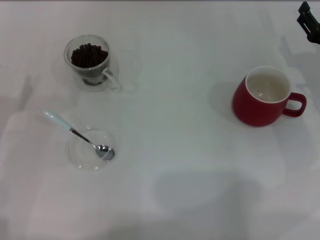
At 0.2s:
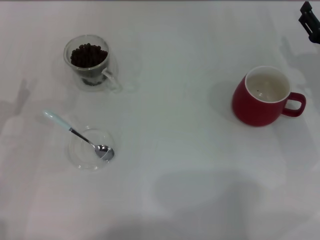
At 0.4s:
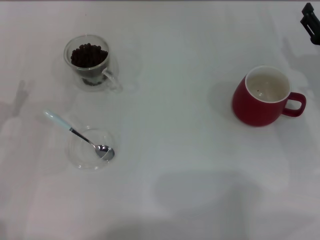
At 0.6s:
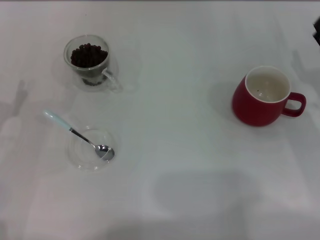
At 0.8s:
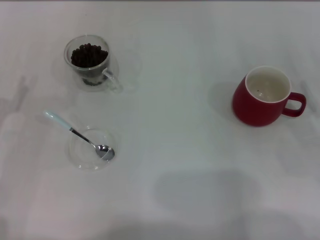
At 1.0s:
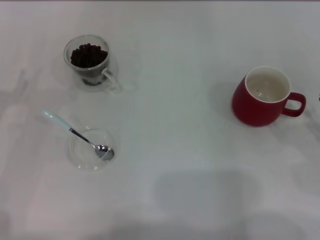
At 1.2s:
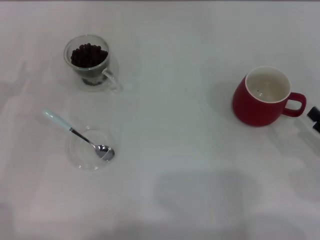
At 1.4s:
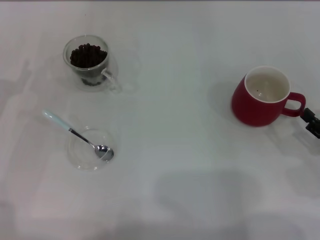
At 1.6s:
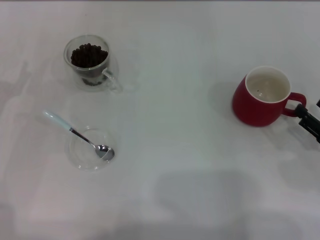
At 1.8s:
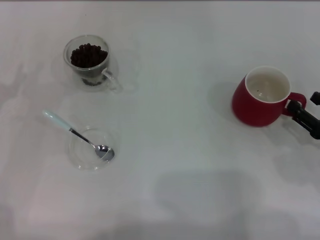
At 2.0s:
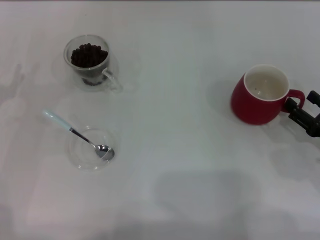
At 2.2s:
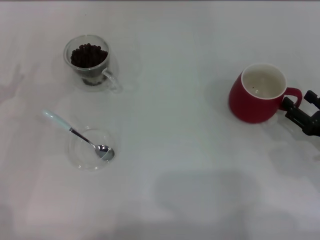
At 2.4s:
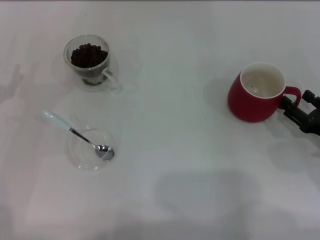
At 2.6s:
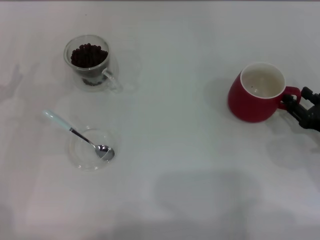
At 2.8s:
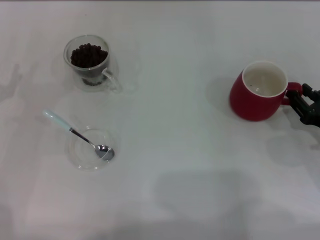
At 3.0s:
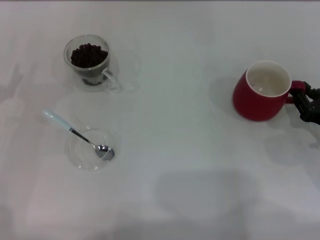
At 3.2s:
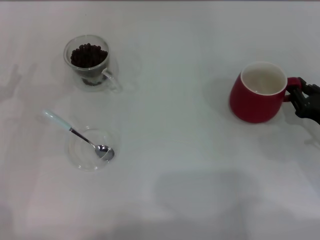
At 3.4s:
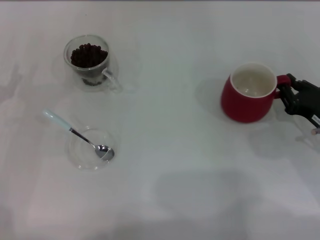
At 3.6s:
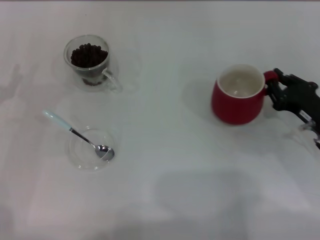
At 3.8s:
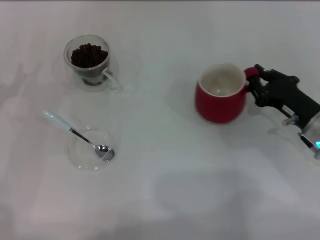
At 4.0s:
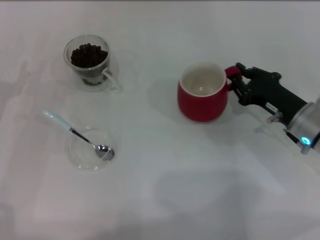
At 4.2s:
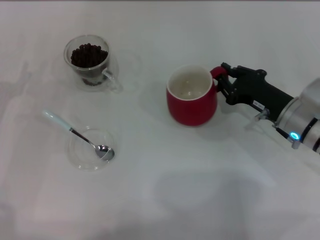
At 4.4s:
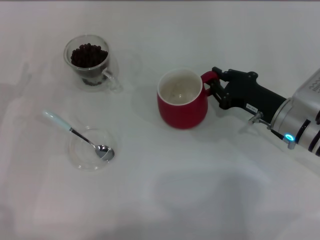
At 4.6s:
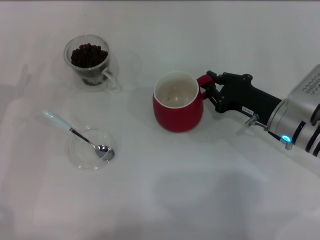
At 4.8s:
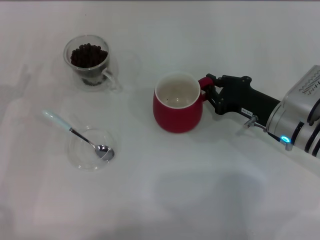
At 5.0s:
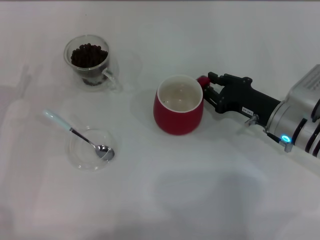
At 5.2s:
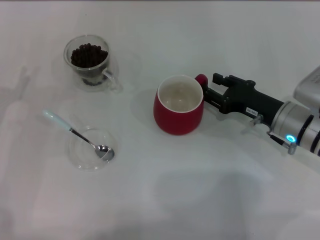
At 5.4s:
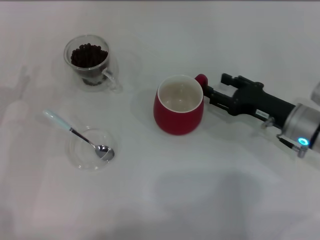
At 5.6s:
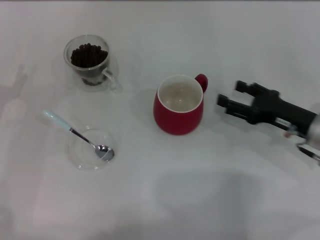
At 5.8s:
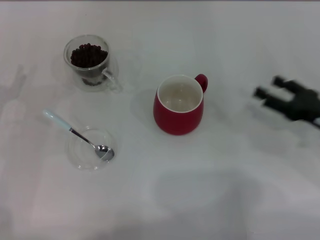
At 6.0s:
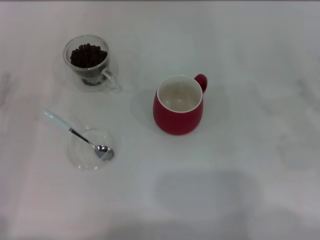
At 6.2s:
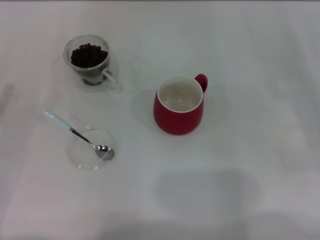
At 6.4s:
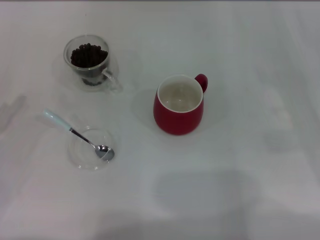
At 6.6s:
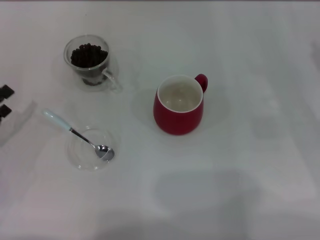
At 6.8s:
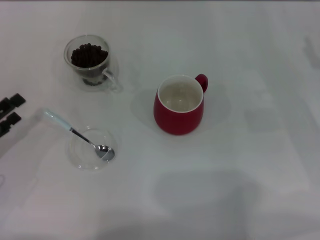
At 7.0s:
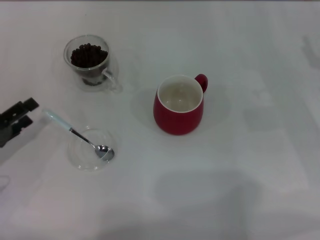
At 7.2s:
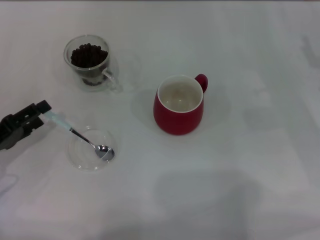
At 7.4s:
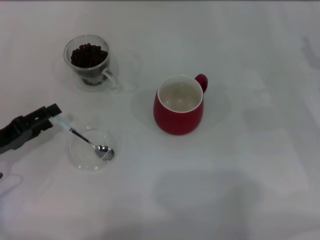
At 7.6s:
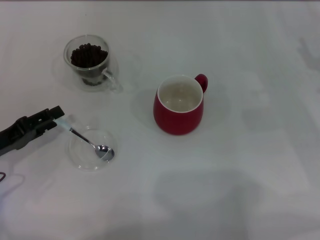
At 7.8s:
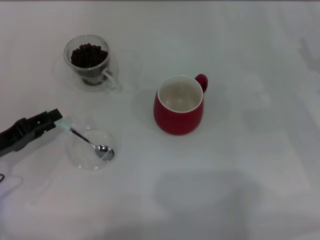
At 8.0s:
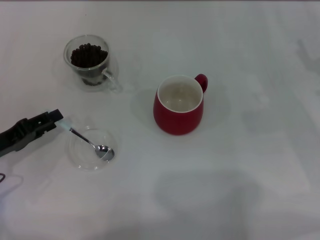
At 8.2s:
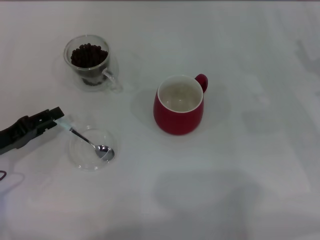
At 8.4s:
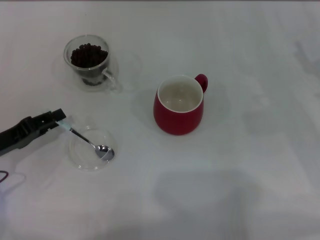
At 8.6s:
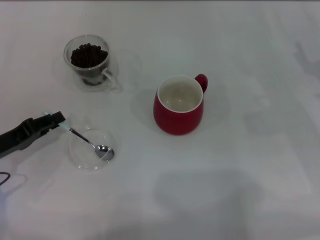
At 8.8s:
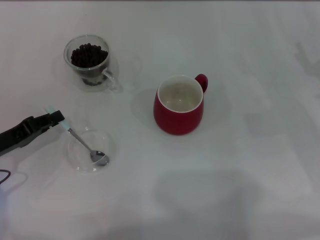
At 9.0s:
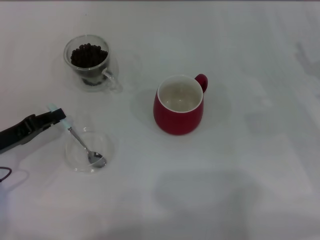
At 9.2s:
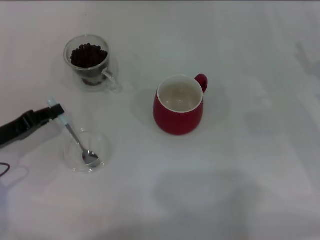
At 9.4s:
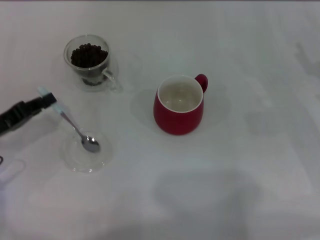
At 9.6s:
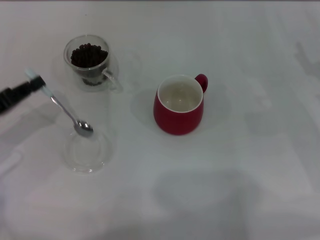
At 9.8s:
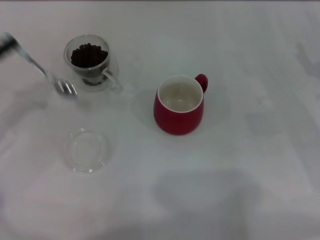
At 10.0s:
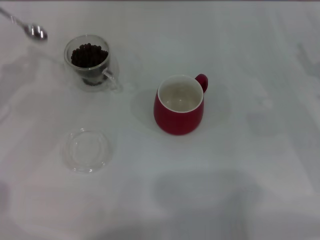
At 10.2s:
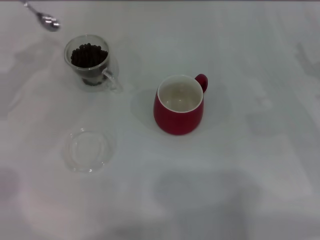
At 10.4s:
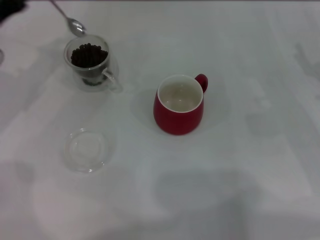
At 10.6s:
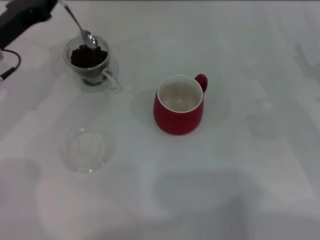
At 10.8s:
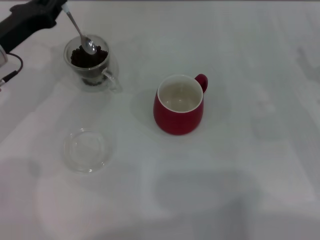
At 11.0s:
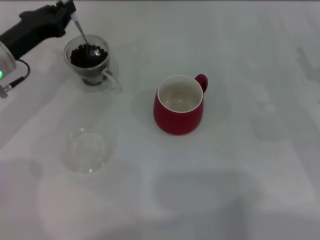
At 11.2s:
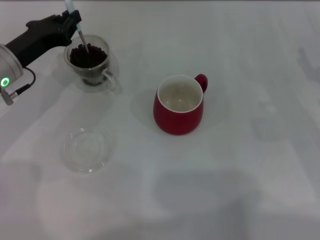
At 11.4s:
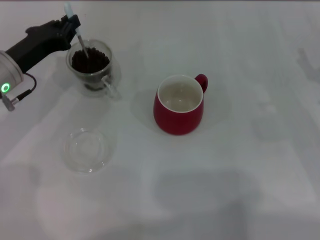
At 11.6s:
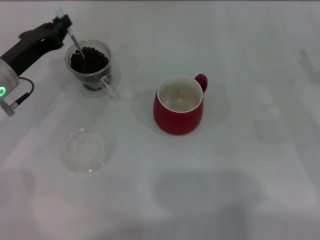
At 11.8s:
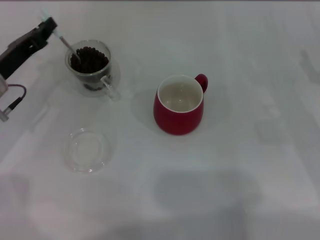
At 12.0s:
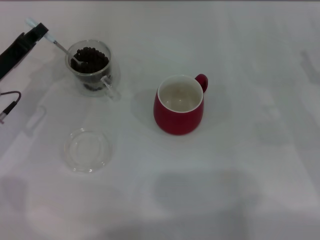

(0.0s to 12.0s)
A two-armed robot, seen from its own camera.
Task of the whole recording: Use a blue spoon to take out the coffee beans from the glass and pour them into the red cup.
Step, 0.0s - 5.4s: Move the cup to the center of view with the left gripper.
Step, 5.6s - 9.6s: Pick up the spoon with the right gripper.
0.0s - 1.6s: The right gripper goes about 15 cm backward.
1.6s - 3.0s: The right gripper closes up.
3.0s - 4.4s: The right gripper shifts approximately 10 cm to the left and forward.
4.4s - 6.0s: The right gripper shifts roughly 15 cm to the right and backward, and opens up.
7.6s - 9.0s: The left gripper closes its fingers.
9.0s - 10.4s: The left gripper shifts some 15 cm forward and upward.
10.4s - 12.0s: The left gripper travels downward by roughly 5 cm.

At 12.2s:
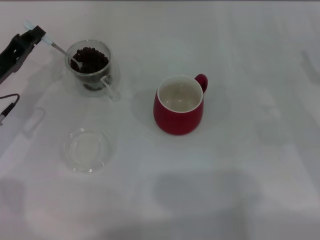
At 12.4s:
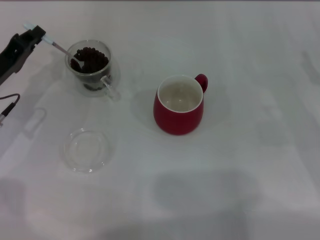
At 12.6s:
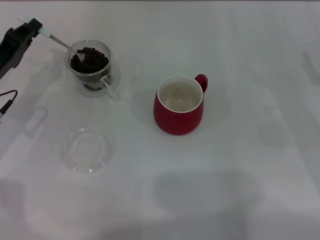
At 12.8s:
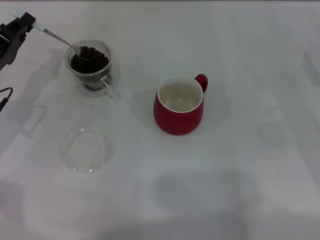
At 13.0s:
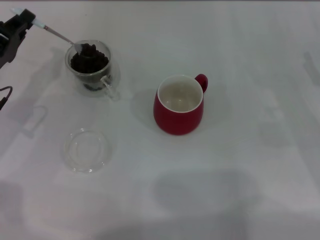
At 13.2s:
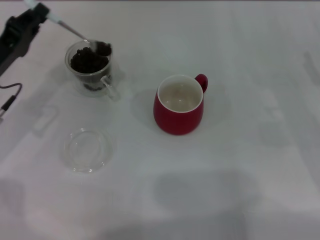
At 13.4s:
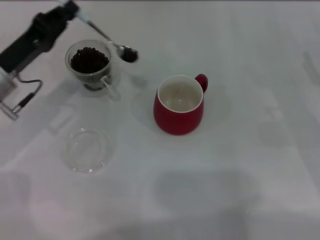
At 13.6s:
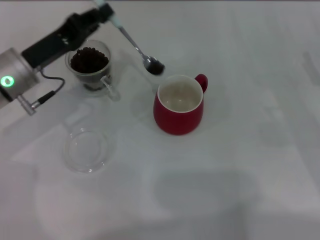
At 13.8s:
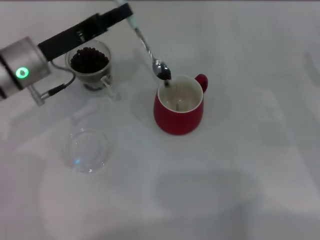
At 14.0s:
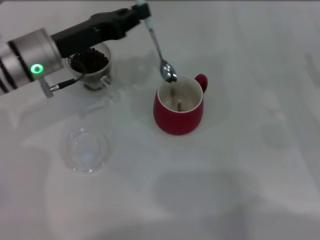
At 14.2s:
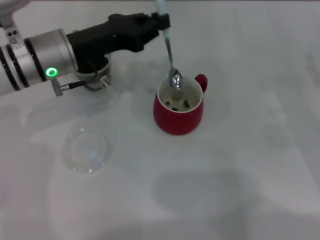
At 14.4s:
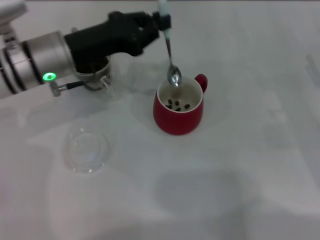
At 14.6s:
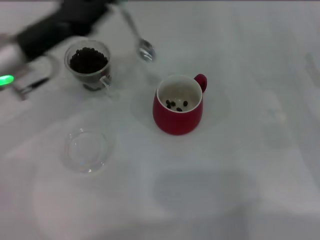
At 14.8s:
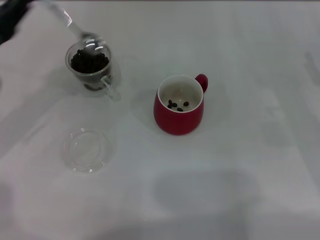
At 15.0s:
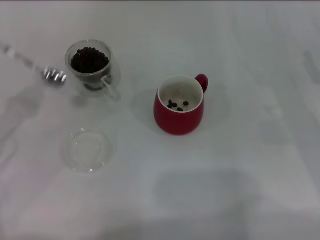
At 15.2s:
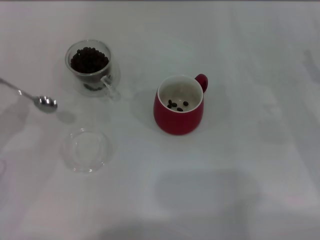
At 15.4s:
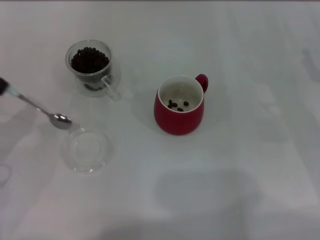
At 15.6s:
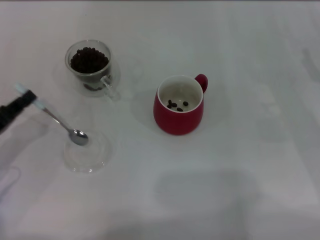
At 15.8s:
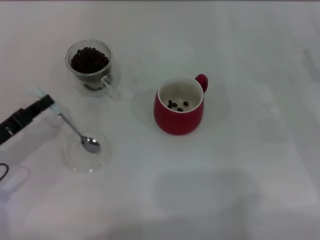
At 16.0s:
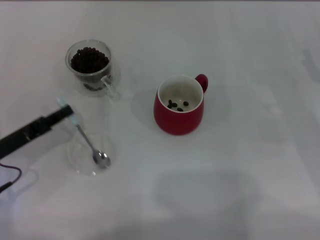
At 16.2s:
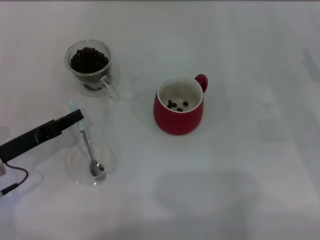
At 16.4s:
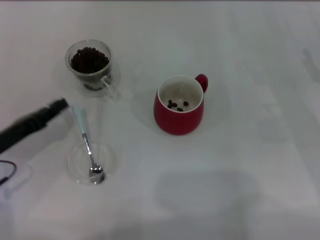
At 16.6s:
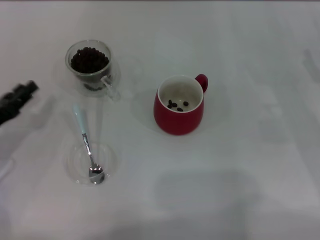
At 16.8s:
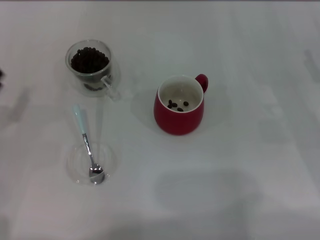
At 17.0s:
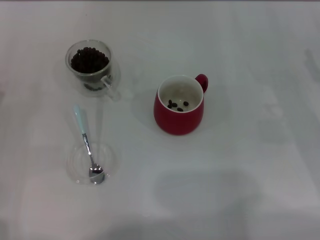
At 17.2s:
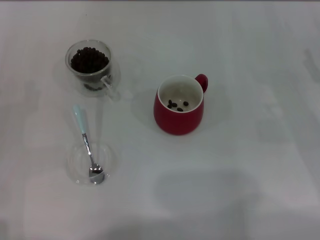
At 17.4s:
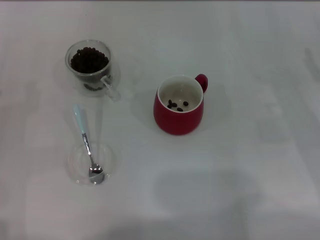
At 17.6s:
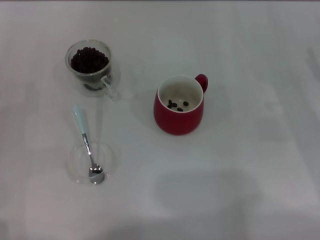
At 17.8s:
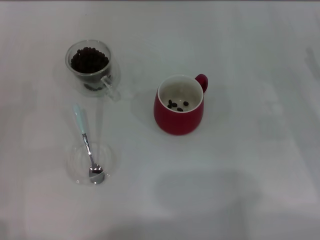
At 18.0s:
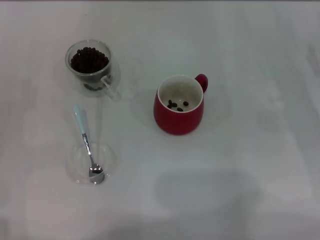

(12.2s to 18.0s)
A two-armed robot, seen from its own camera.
Task of the whole recording: Use a blue spoon to take out the coffee beans from the glass and pour them into the red cup.
12.2s - 13.6s: The left gripper shifts approximately 5 cm to the right.
13.6s - 15.0s: The left gripper travels to the left and backward by approximately 10 cm.
15.0s - 16.6s: The left gripper goes about 5 cm downward.
16.6s - 18.0s: The left gripper opens.

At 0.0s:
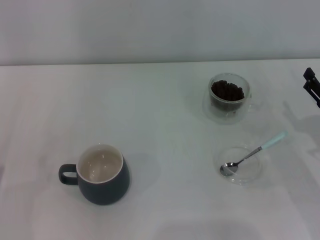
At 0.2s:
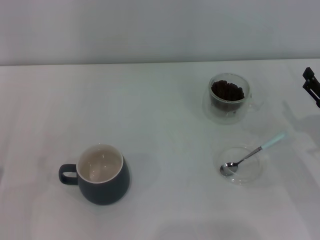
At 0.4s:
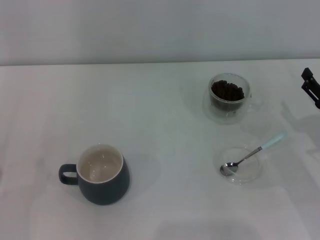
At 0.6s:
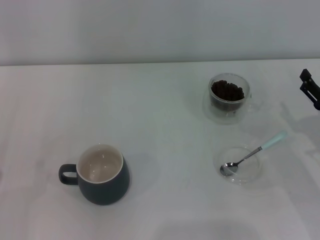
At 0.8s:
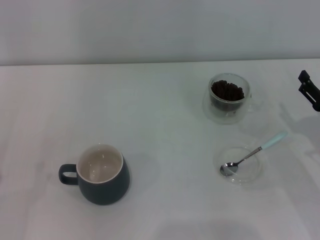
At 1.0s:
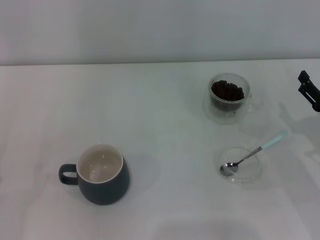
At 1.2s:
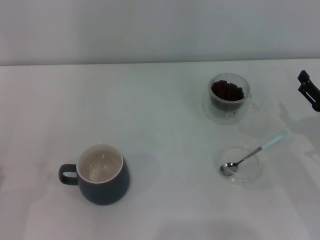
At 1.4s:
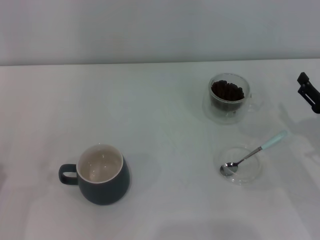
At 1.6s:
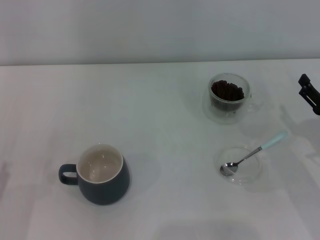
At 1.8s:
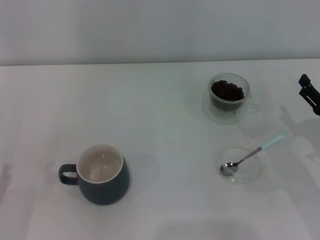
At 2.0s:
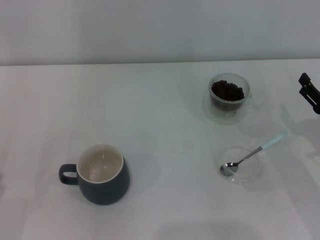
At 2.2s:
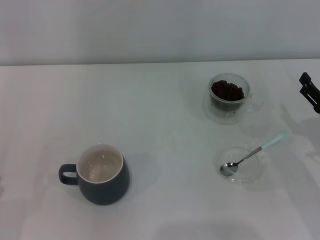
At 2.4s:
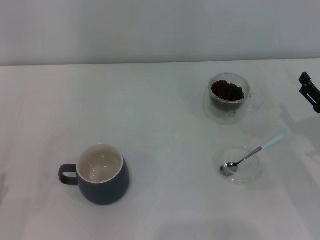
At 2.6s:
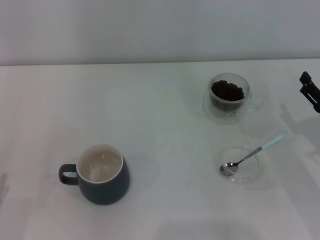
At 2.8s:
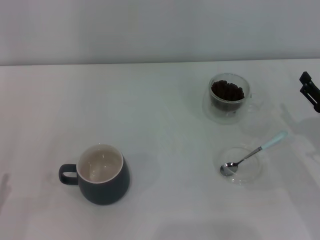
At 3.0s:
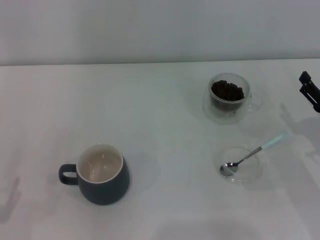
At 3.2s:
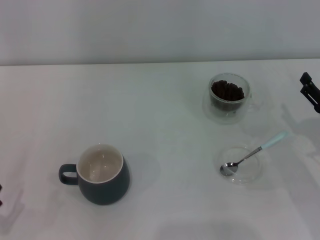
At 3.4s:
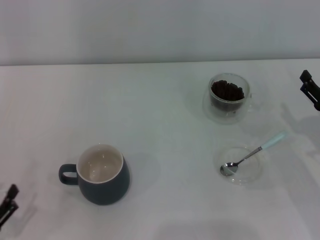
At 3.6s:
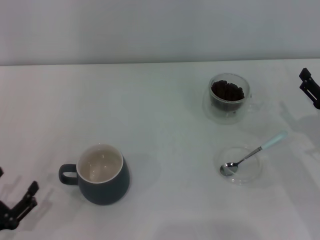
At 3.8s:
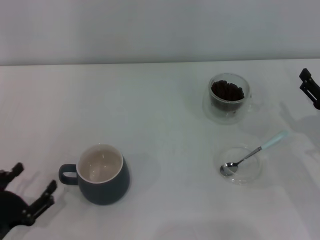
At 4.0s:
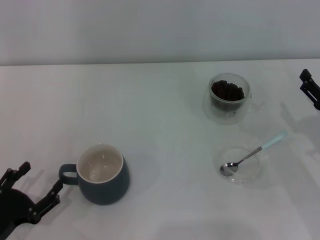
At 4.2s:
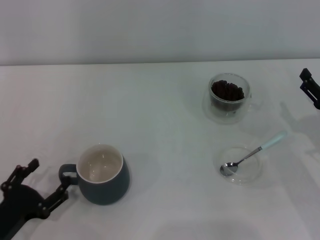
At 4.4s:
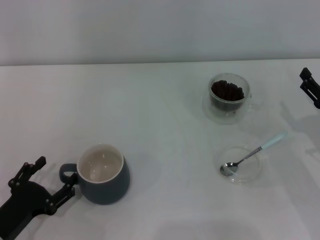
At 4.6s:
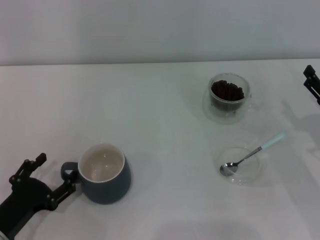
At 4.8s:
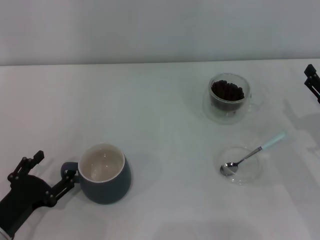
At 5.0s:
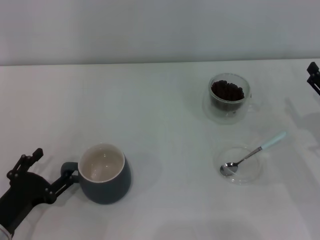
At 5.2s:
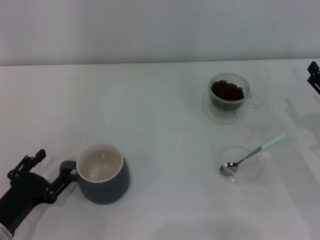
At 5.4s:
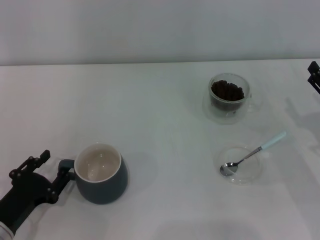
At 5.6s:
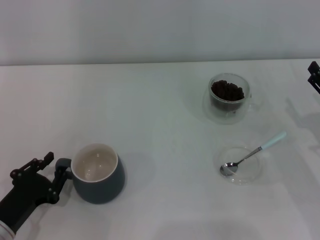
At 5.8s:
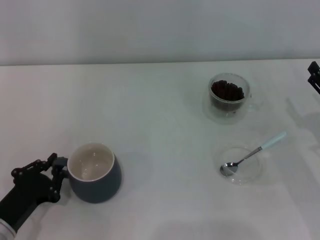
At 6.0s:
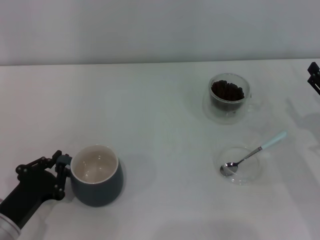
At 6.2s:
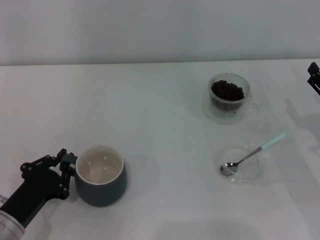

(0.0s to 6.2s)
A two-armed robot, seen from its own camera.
Task of the whole recording: Use a blue spoon to take out the coffee beans from the glass and pour them into the gray cup.
3.2s - 4.6s: The left gripper is displaced forward and to the right by approximately 10 cm.
4.6s - 6.2s: The left gripper closes its fingers.
